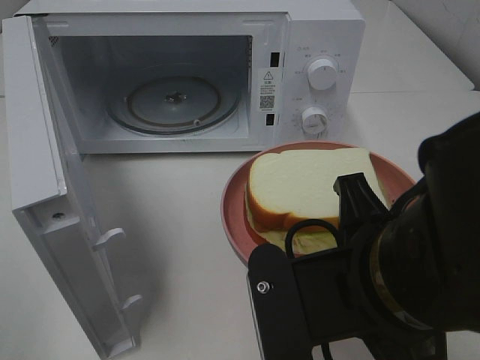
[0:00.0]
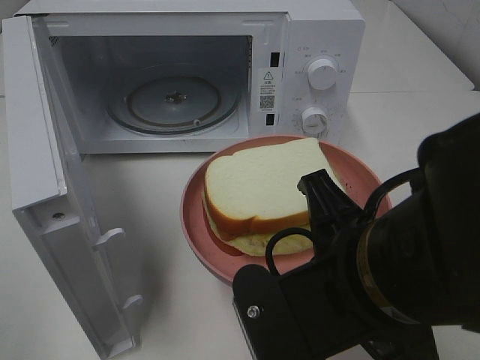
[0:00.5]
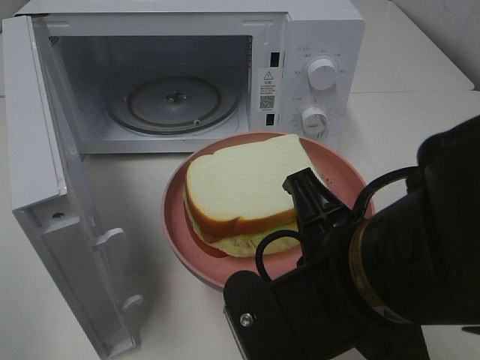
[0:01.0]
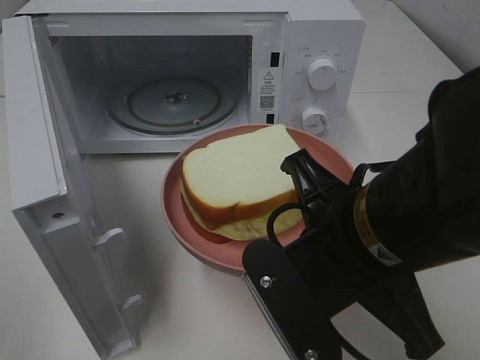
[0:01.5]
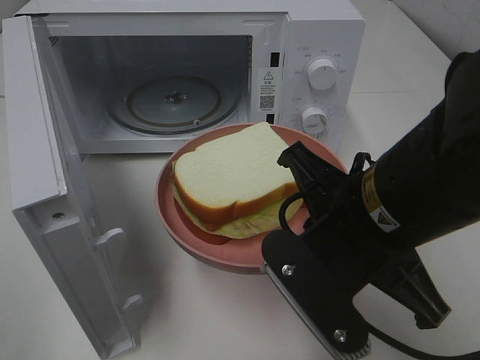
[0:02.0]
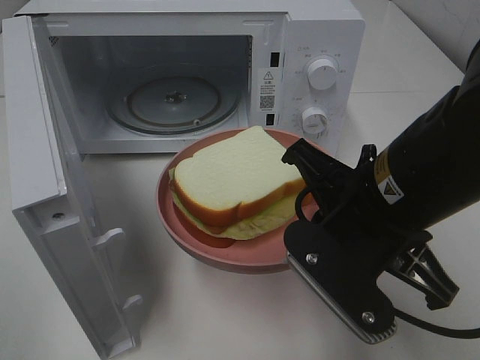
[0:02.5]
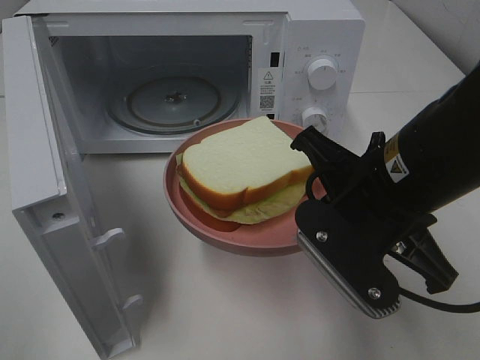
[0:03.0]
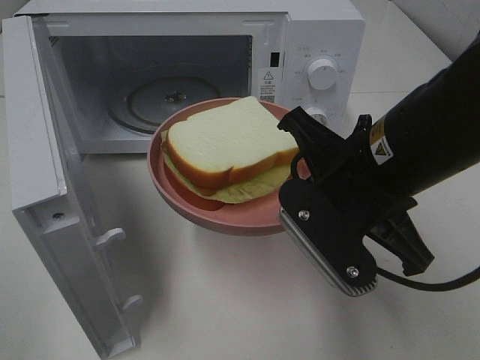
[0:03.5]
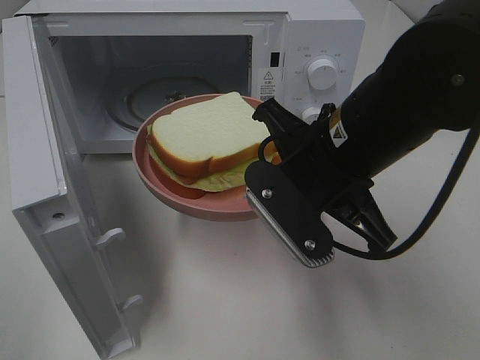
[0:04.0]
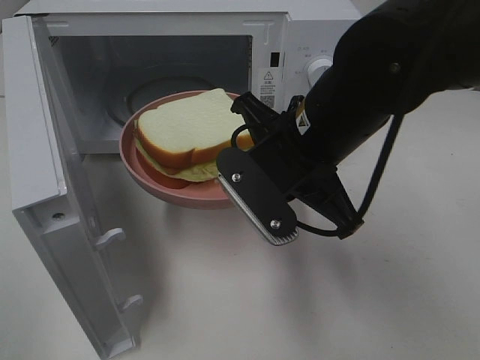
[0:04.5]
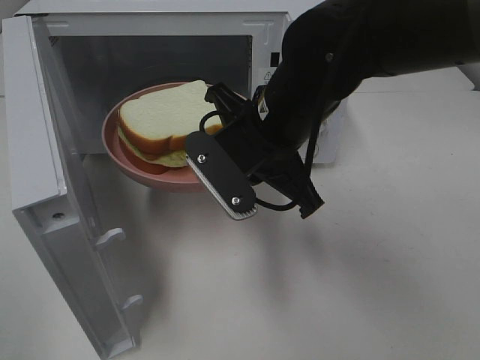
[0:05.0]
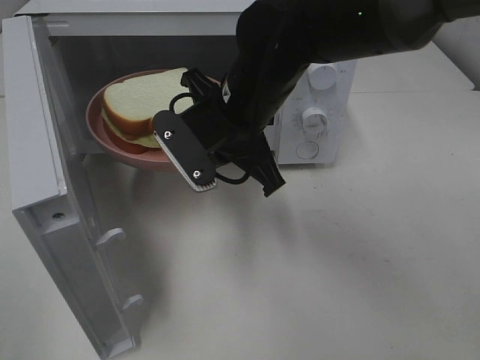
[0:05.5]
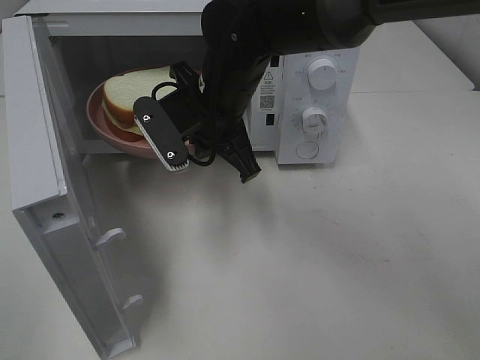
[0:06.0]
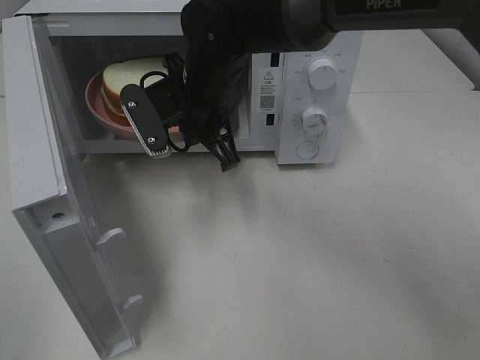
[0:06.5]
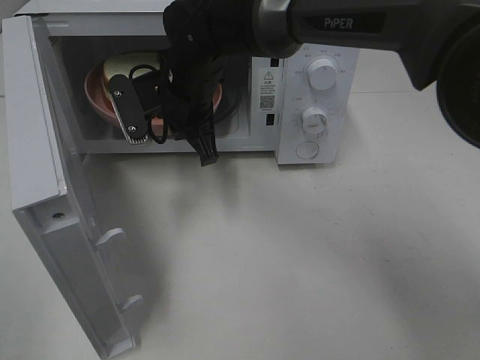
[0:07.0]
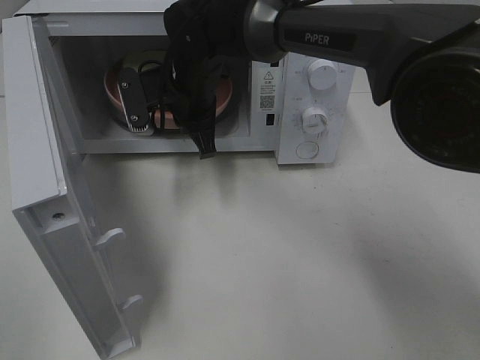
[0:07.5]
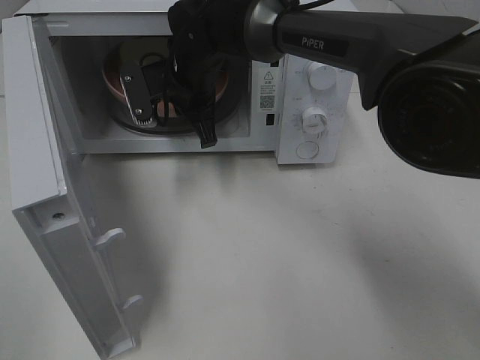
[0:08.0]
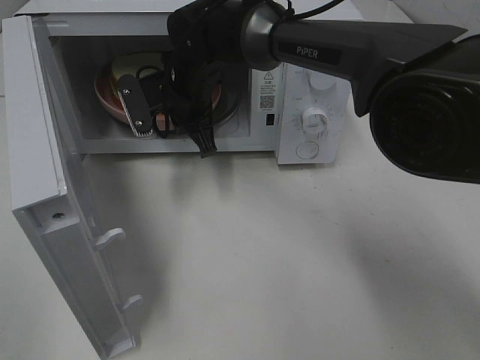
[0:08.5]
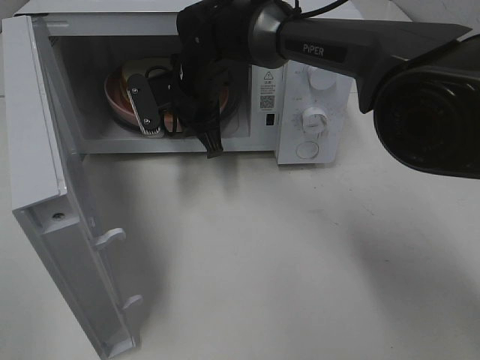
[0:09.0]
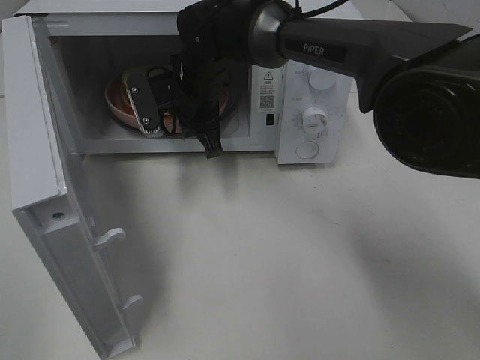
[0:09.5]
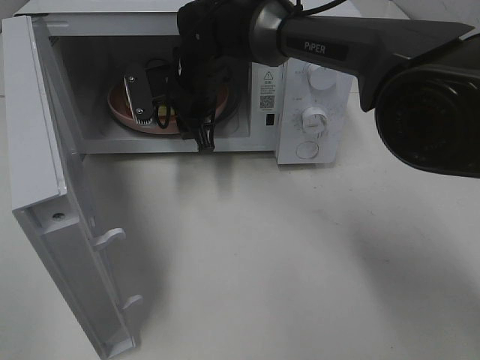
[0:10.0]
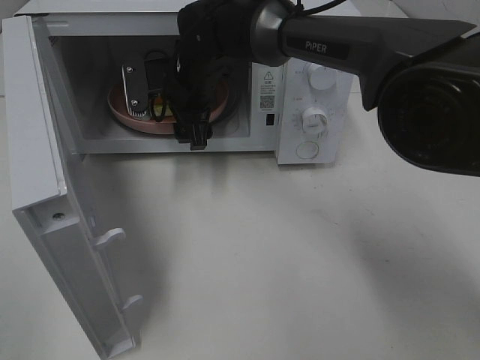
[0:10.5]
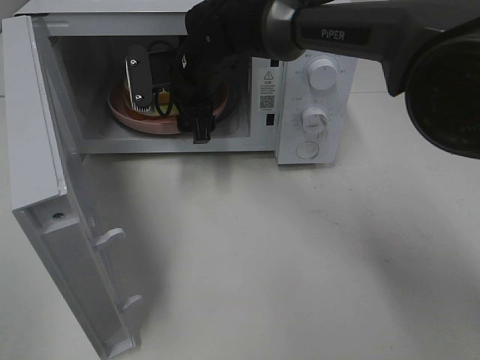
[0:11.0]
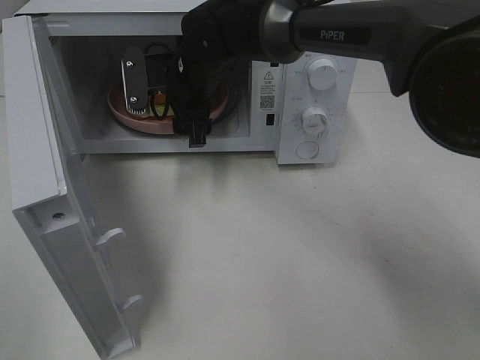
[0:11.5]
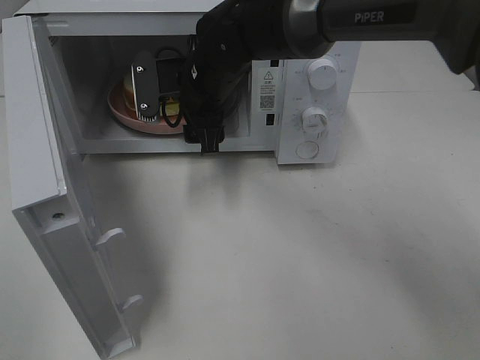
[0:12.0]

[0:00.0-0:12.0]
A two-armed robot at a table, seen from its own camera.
Task of the whole recording: Heat Sandwich.
Step, 0:00.0 to 0:11.0: Right hand: place the plate in the microwave.
0:00.0 to 0:02.0: The right gripper moves forward, about 5 cm.
0:02.0 to 0:04.0: The right gripper shifts some 5 cm forward.
0:04.0 to 0:06.0: The right gripper is displaced forward and to the left by some 15 cm.
0:06.0 to 0:08.0: The right gripper travels forward by roughly 10 cm.
0:08.0 to 0:10.0: The right gripper opens.
0:10.0 to 0:12.0: The grippers stay close to where they were, moving slightly.

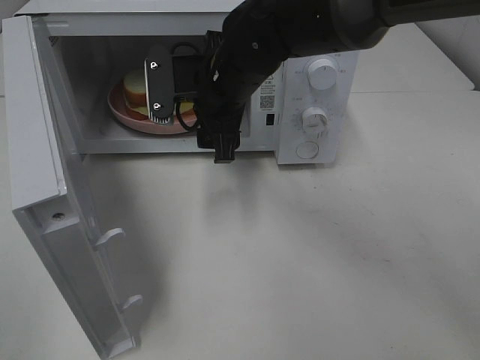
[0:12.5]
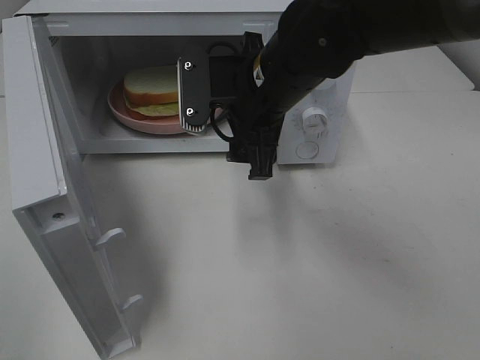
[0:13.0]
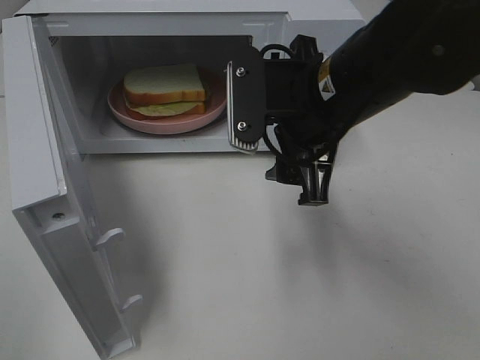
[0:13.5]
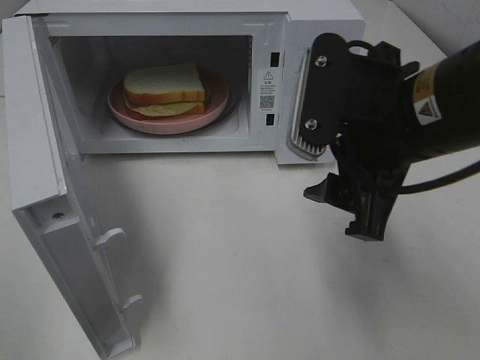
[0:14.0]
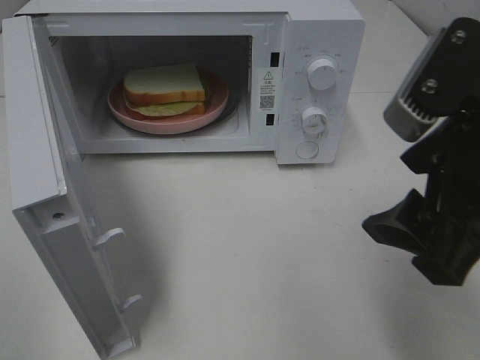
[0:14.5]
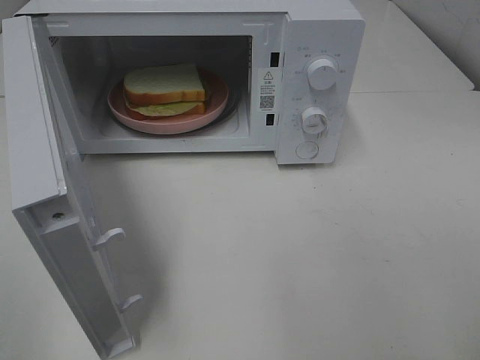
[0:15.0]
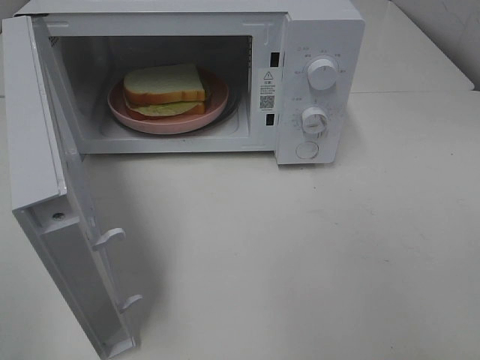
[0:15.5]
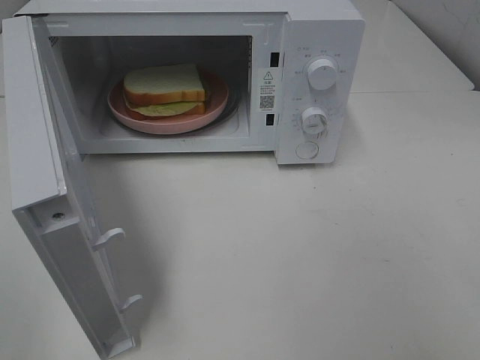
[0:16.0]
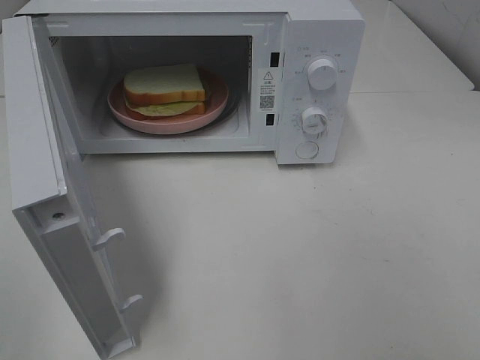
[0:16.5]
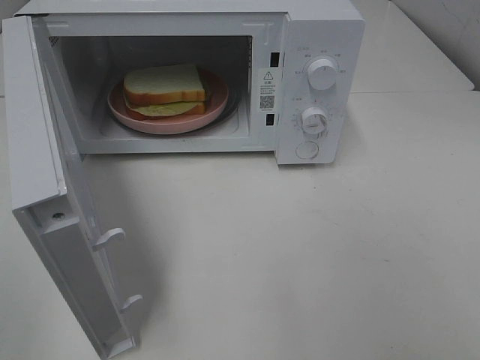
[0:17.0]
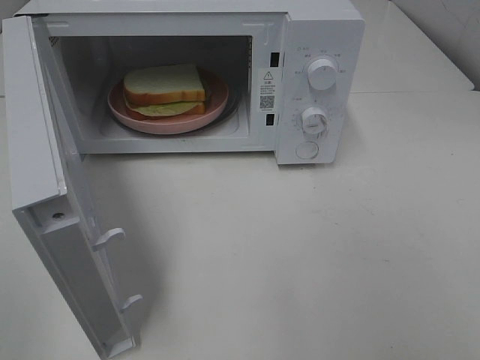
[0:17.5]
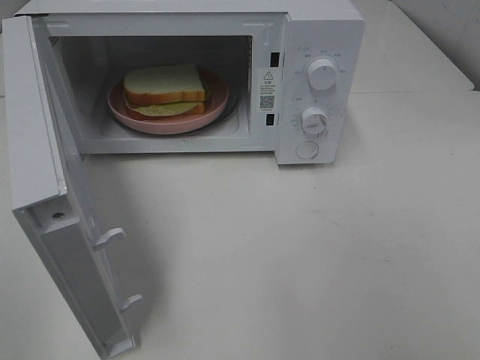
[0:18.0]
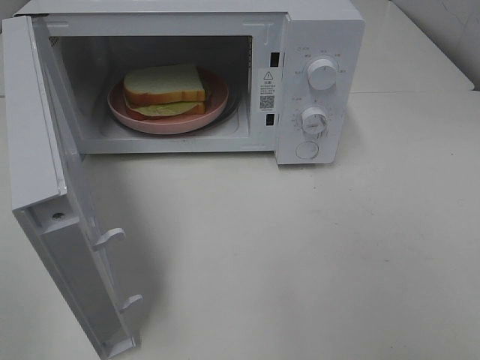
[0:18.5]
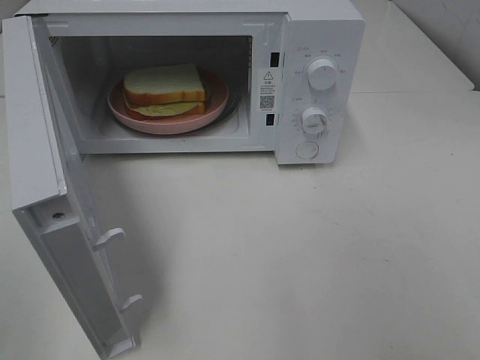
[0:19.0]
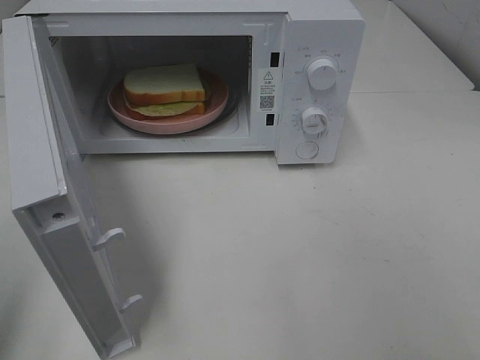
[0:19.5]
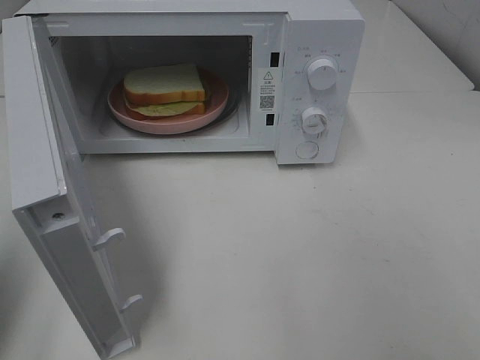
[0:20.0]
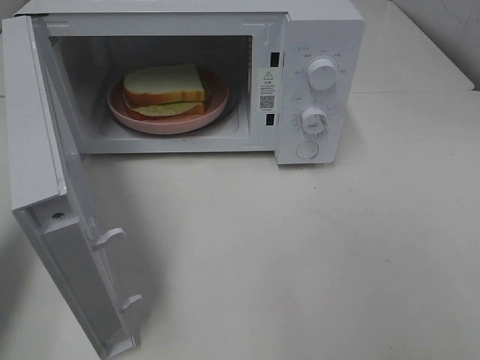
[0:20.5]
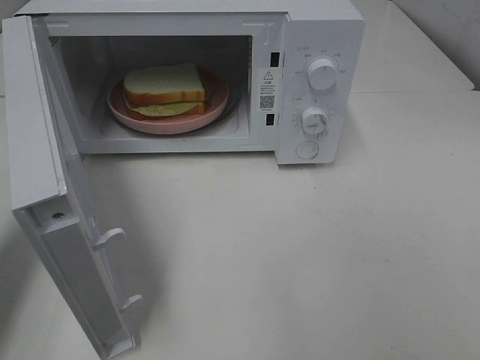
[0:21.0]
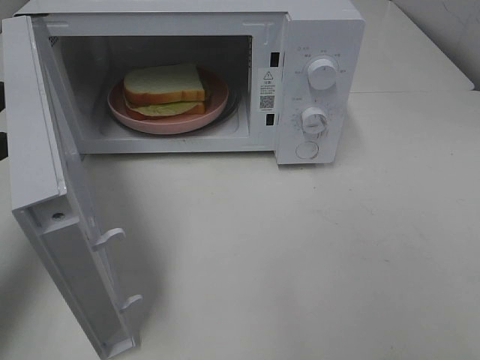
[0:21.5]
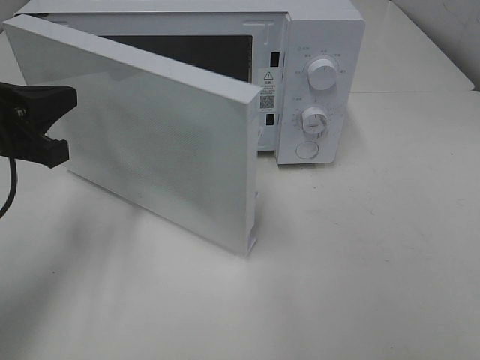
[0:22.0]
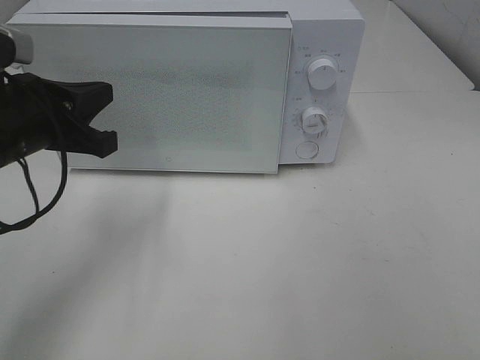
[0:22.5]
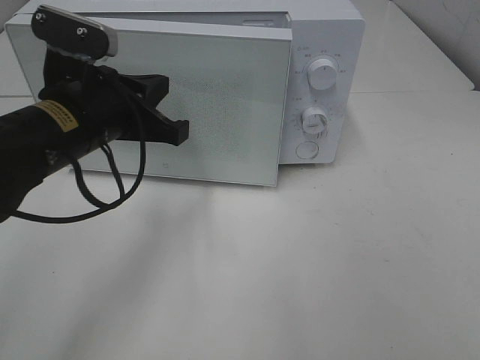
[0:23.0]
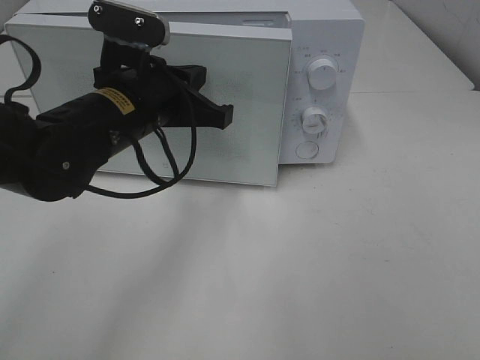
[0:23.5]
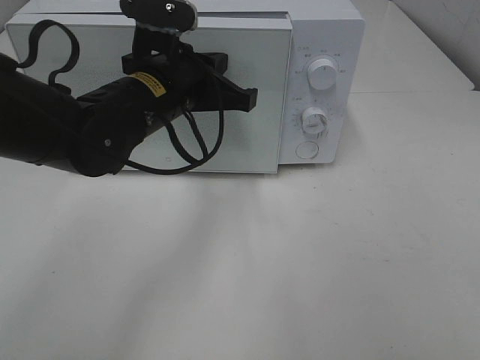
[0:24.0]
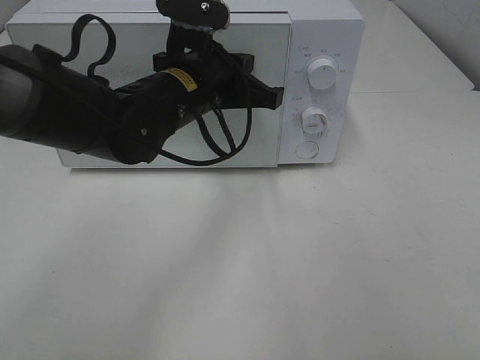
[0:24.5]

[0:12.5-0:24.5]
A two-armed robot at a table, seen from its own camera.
Task of the whole recording: Heat Sandwich.
0:12.5 to 0:14.5: The right gripper travels backward and to the right by some 30 cm.
0:14.5 to 0:16.5: The right gripper shifts about 20 cm backward and to the right.
0:18.5 to 0:20.5: The left gripper shifts about 20 cm forward, and closes its fingers.
0:20.5 to 0:22.5: The left gripper heads to the right, forward and downward, covering about 15 cm.
0:22.5 to 0:24.5: The left gripper shifts approximately 15 cm to the right and forward.

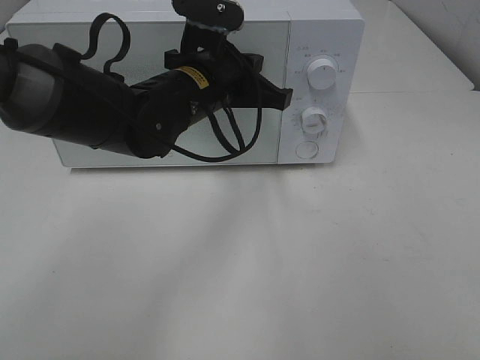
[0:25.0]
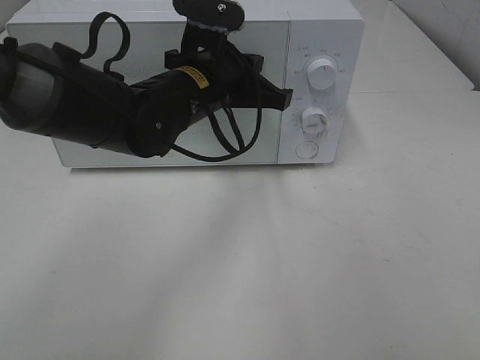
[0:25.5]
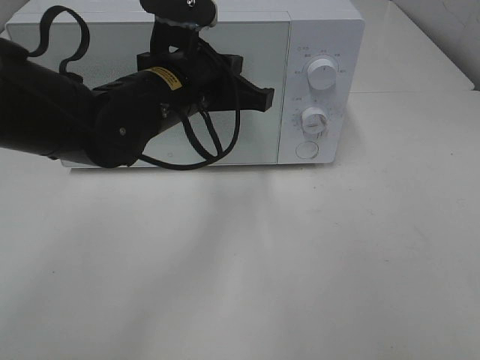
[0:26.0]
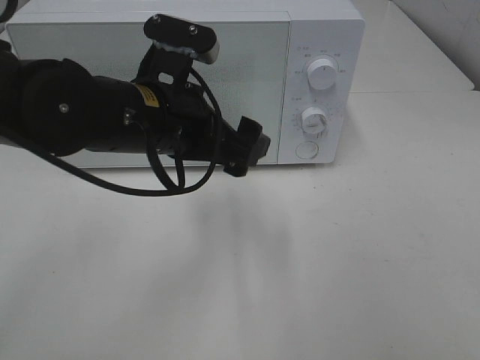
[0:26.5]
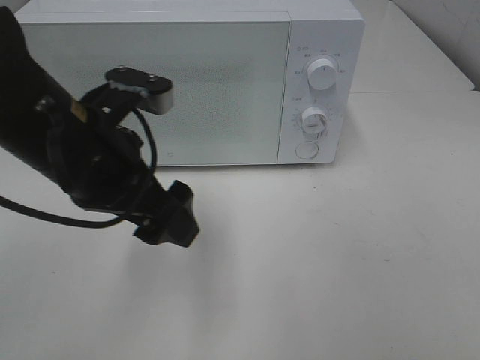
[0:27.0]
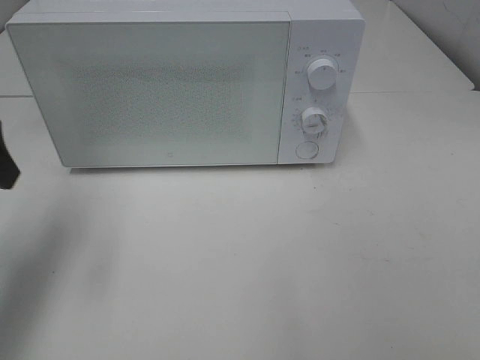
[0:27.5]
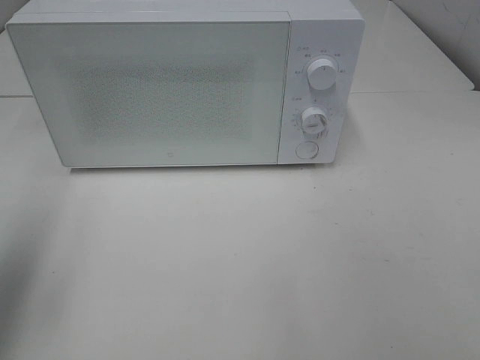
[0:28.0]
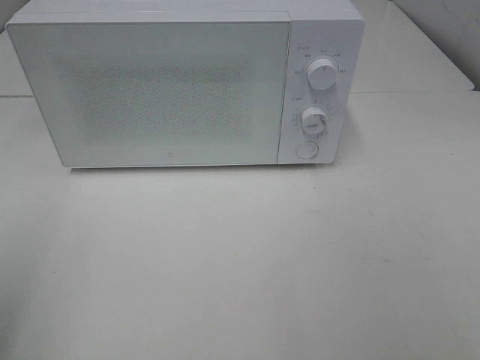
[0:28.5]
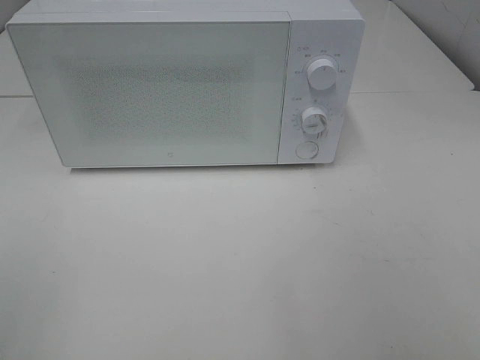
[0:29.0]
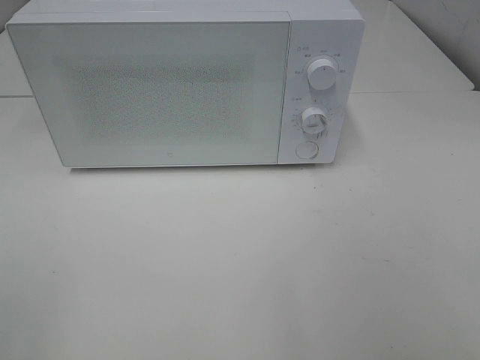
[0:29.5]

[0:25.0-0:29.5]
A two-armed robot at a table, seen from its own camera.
Task of the whole recording: Heat Sandwich.
0:25.0 to 0:27.0: The left gripper moves backward and to the left, approximately 15 cm, and opens up.
0:27.0 to 0:29.5: The left gripper moves backward and to the left, approximately 30 cm.
